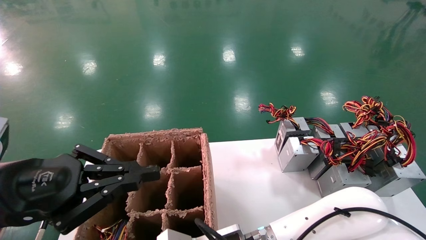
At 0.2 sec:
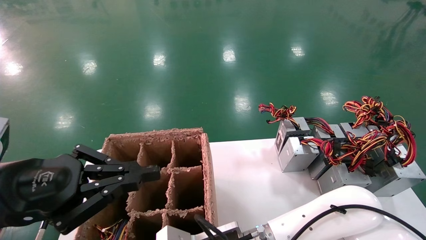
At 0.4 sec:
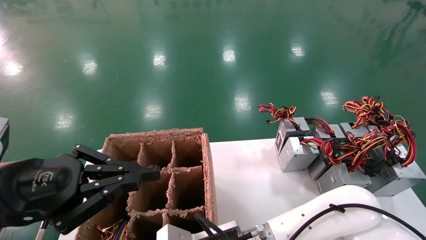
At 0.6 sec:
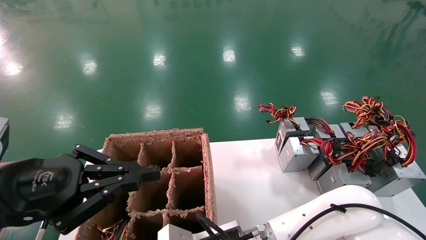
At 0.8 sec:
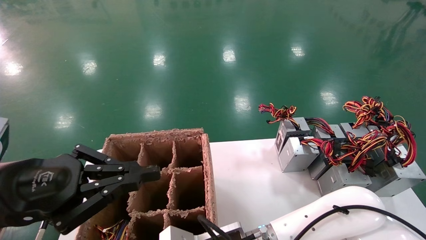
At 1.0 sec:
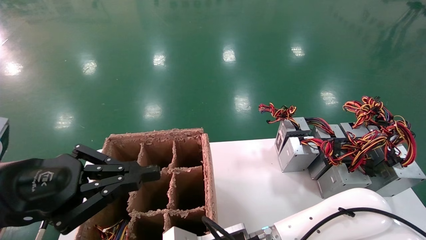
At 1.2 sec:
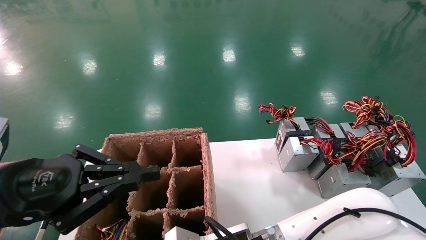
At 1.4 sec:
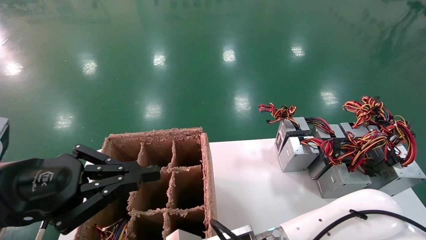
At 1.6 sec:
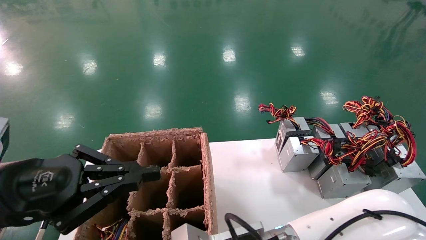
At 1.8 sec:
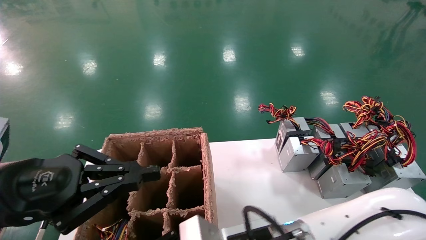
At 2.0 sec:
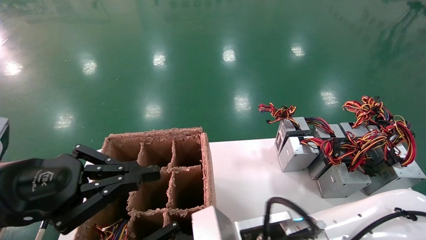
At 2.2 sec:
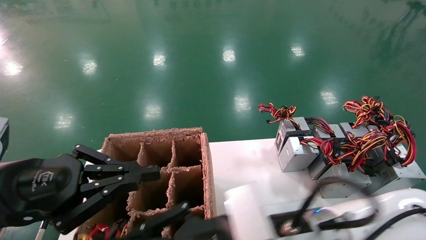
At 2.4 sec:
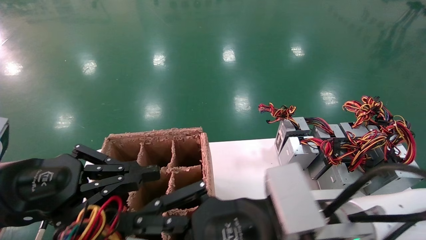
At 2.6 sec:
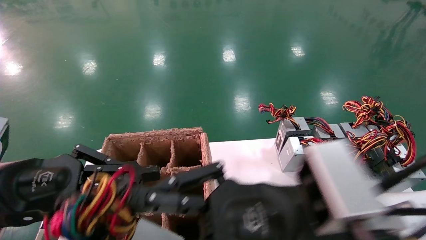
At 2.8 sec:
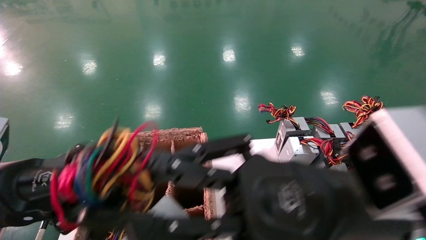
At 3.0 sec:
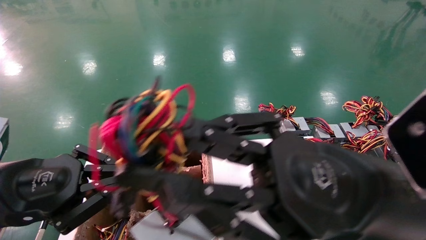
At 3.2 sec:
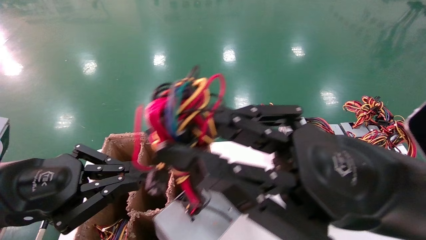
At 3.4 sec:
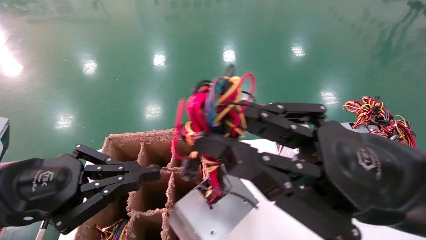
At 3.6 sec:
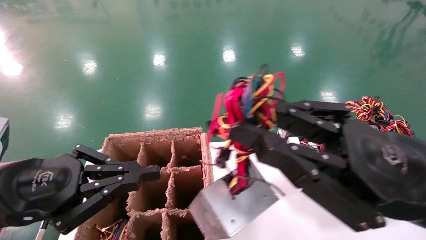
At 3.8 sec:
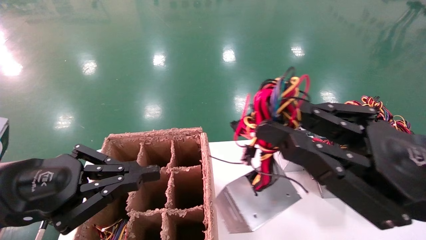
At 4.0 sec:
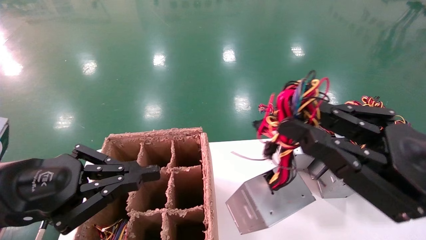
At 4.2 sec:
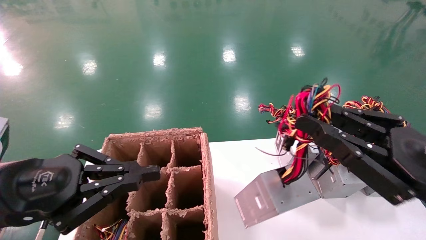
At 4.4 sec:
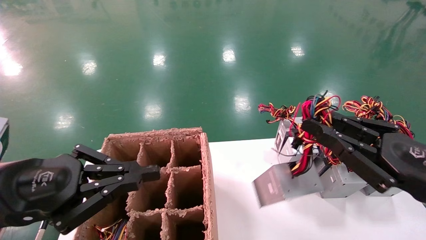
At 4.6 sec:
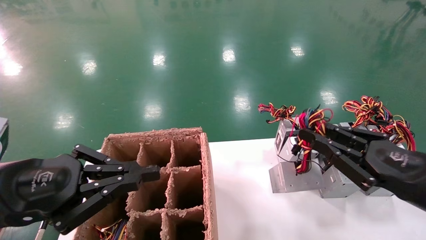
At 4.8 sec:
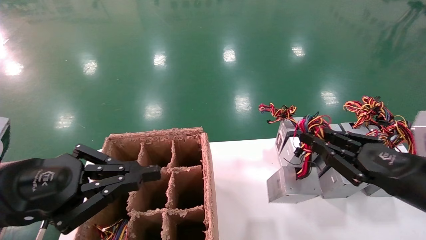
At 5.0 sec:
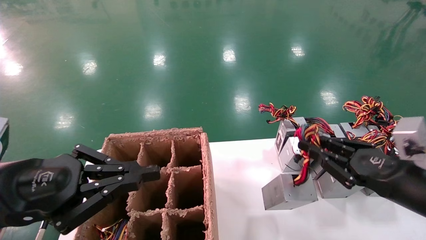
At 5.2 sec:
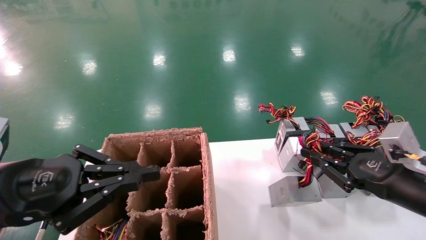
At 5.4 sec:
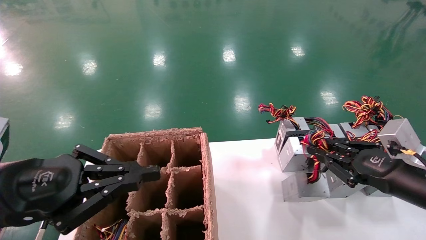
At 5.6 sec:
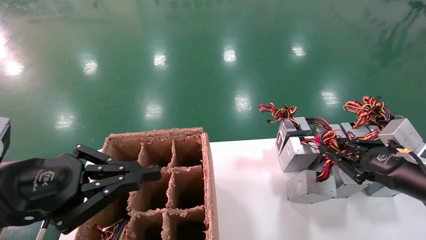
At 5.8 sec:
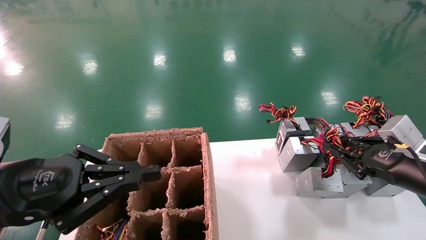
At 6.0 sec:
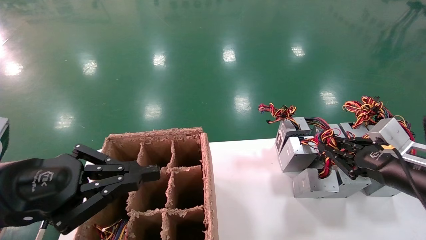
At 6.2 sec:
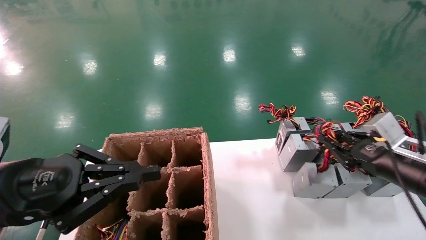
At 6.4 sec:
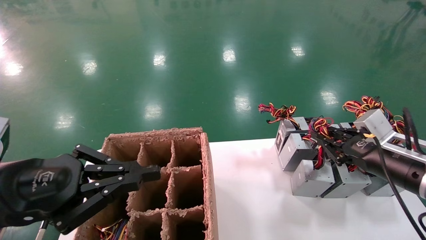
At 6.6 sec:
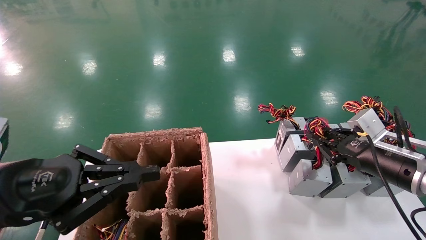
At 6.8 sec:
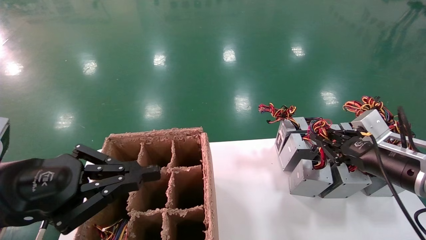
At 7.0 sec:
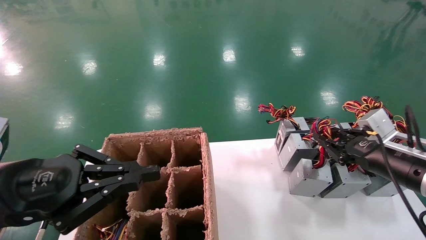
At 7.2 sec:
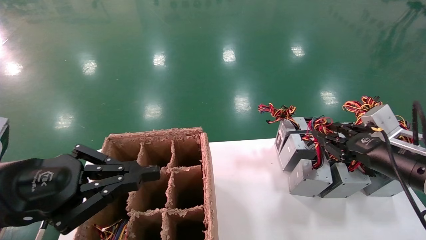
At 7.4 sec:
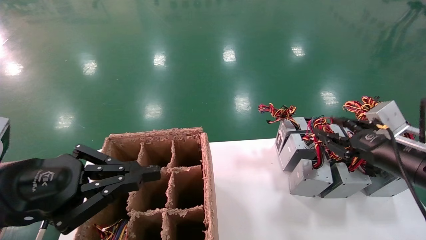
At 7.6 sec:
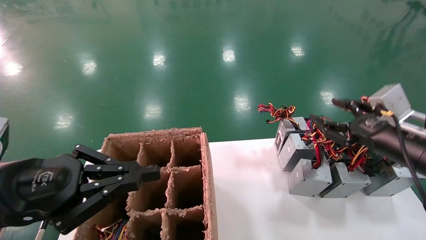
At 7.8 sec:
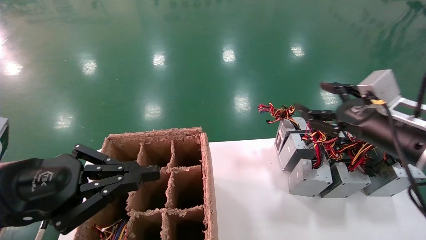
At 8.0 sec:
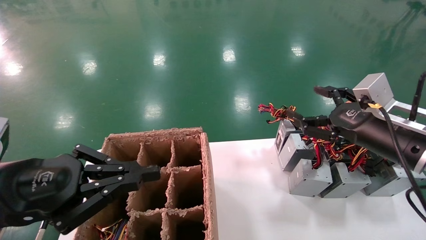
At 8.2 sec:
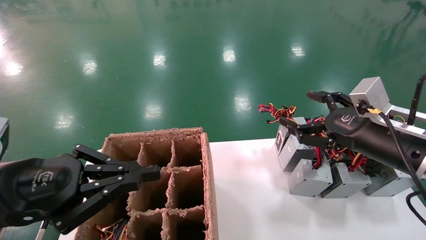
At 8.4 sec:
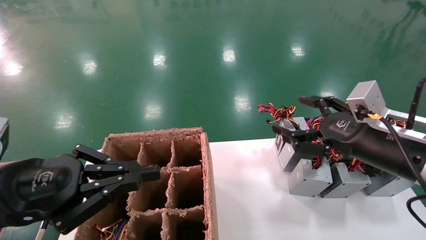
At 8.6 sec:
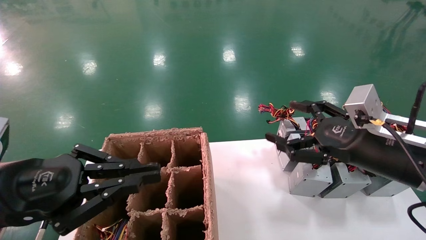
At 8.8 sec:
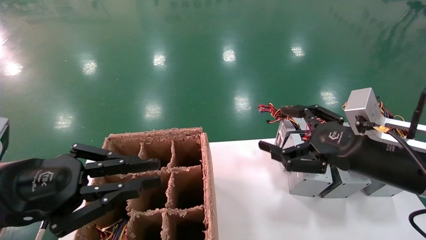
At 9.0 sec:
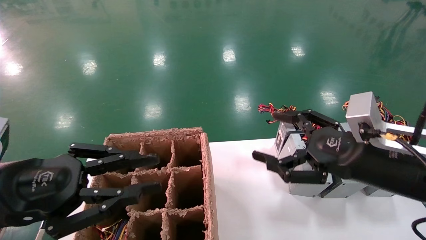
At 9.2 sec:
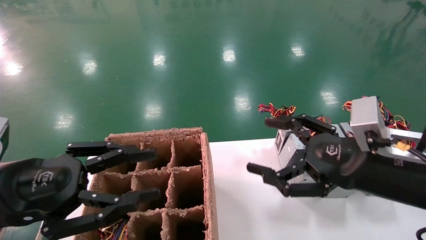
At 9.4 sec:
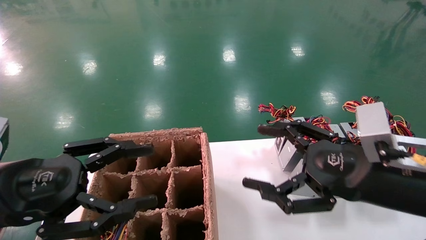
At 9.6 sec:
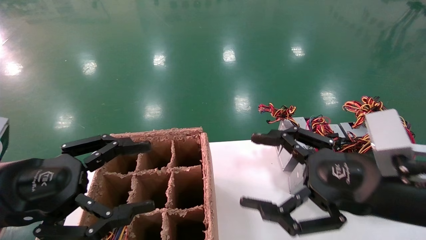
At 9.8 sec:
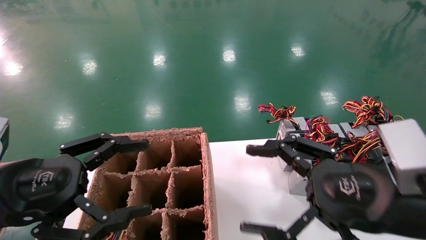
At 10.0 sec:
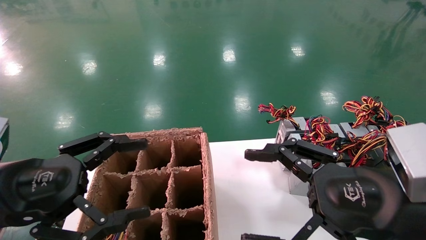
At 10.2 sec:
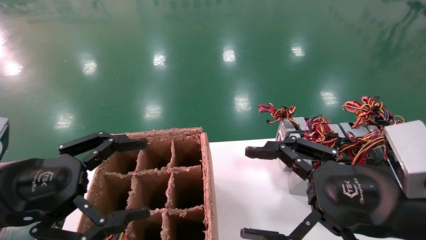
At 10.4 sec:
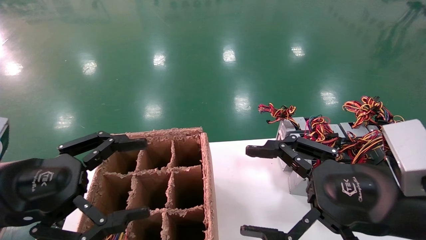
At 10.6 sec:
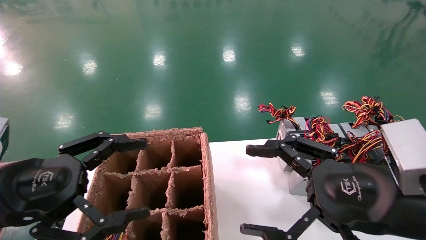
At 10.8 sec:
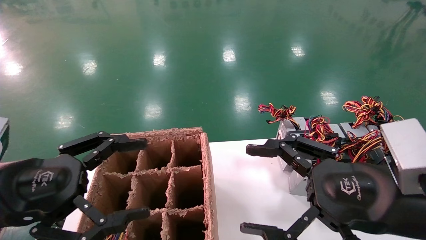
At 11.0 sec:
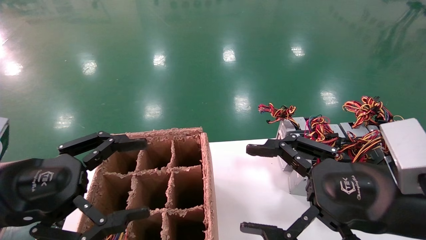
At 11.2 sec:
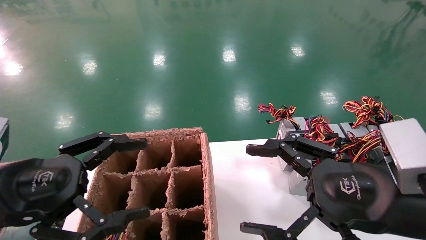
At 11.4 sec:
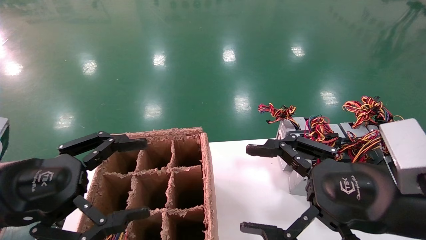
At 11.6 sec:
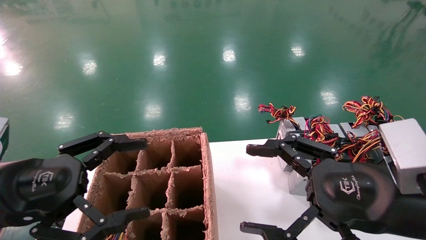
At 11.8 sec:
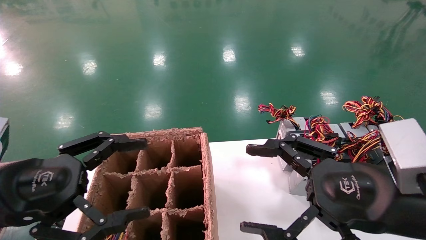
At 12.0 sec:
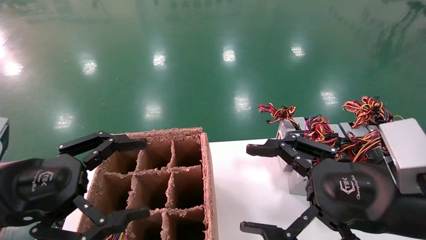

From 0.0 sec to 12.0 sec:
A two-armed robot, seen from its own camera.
Step, from 1.2 sec to 7.8 sec: Place the main unit power supply in the designated area.
From 0.0 sec to 1.6 sec: The right gripper closes its fingers.
From 1.6 sec to 3.0 sec: The right gripper shifts approximately 20 cm upward, to the right and backward.
From 3.0 sec to 4.4 sec: The right gripper heads to the right, covering some 15 cm.
From 4.4 sec to 6.0 sec: The right gripper is displaced forward and to the right by roughly 10 cm.
From 6.0 sec to 7.6 sec: The right gripper opens.
From 7.6 sec to 9.0 sec: The right gripper goes roughly 10 cm to the left and backward, and opens up.
From 9.0 sec to 10.4 sec: The right gripper heads backward, covering roughly 5 cm. Meanwhile the left gripper opens its fingers.
From 10.4 sec to 12.0 sec: The two grippers keep their place.
